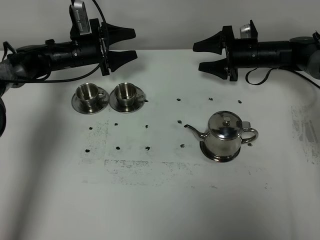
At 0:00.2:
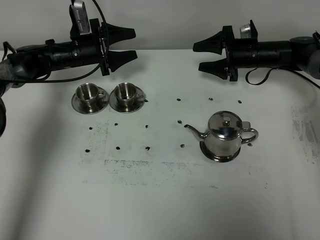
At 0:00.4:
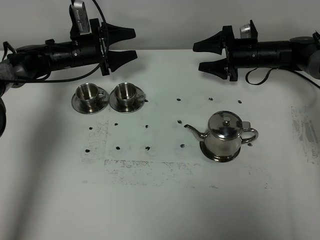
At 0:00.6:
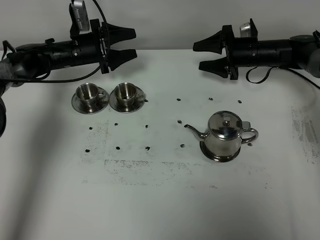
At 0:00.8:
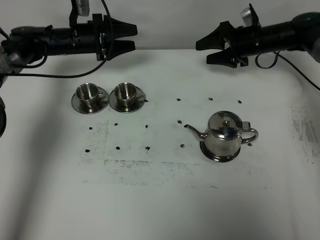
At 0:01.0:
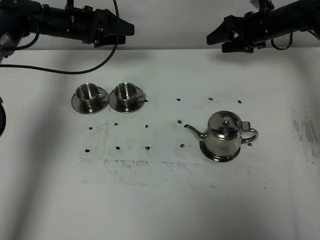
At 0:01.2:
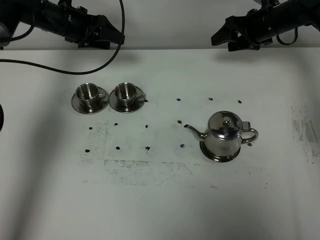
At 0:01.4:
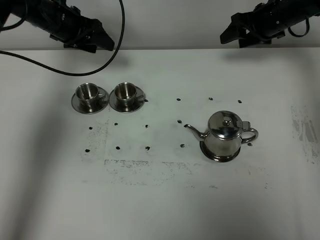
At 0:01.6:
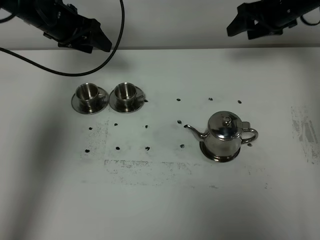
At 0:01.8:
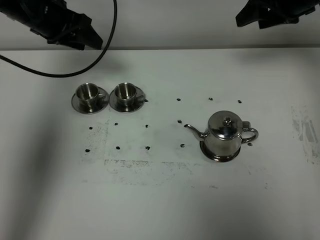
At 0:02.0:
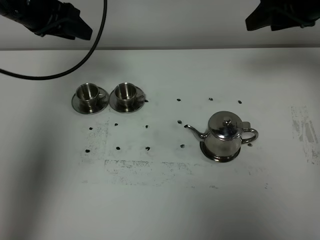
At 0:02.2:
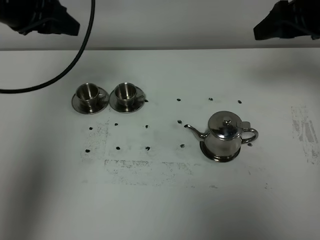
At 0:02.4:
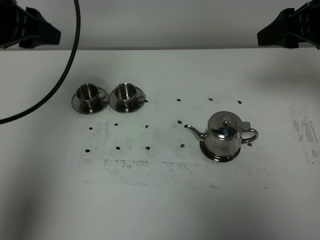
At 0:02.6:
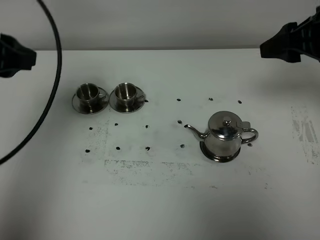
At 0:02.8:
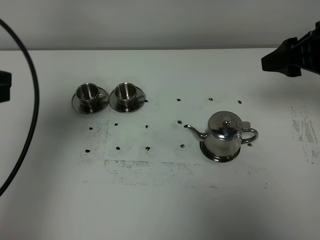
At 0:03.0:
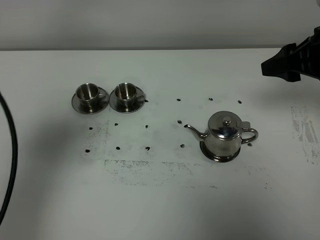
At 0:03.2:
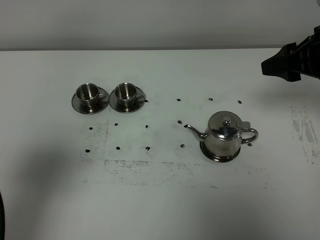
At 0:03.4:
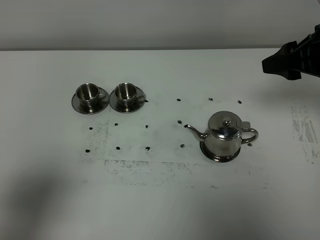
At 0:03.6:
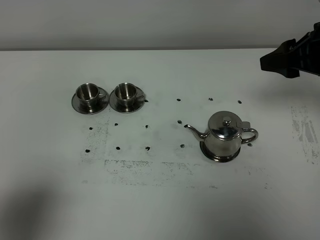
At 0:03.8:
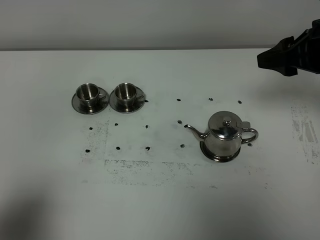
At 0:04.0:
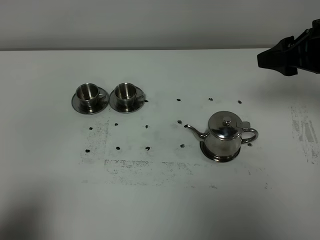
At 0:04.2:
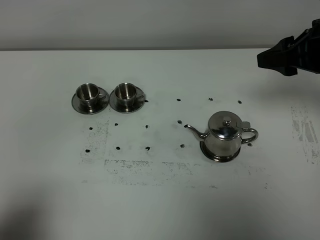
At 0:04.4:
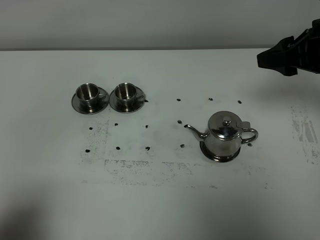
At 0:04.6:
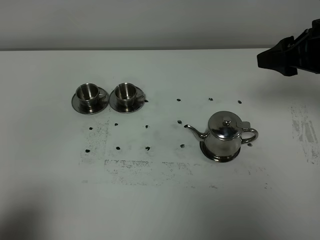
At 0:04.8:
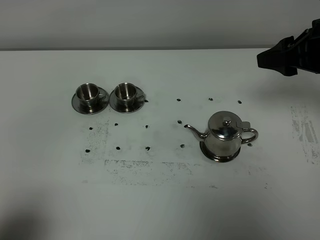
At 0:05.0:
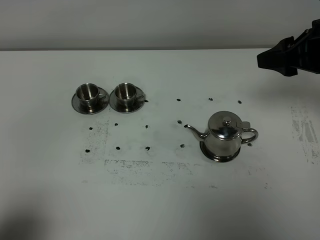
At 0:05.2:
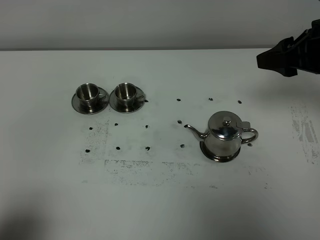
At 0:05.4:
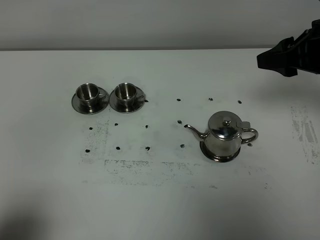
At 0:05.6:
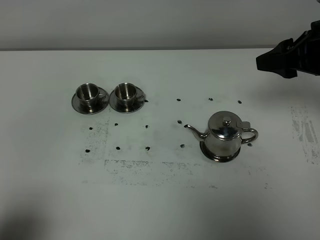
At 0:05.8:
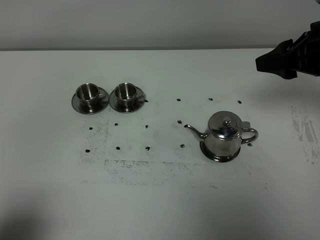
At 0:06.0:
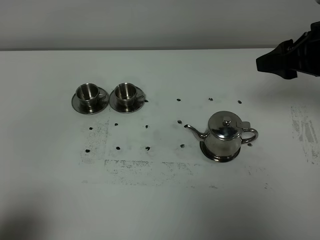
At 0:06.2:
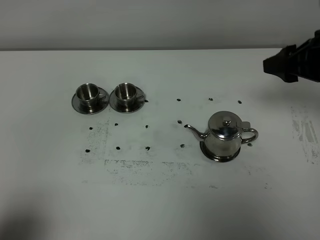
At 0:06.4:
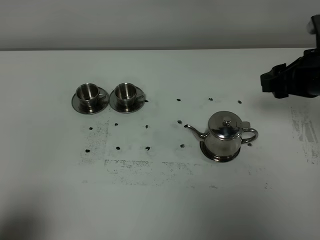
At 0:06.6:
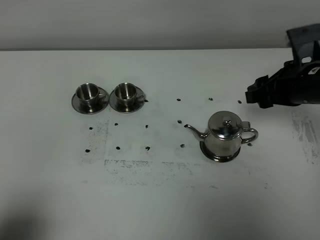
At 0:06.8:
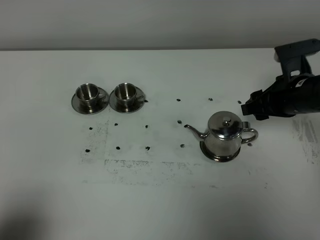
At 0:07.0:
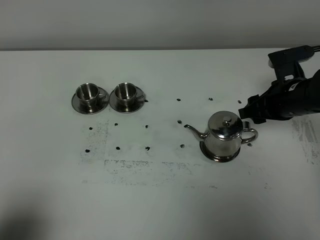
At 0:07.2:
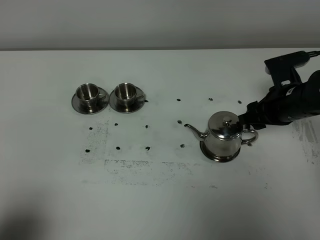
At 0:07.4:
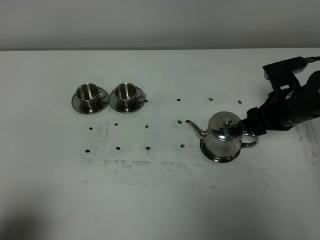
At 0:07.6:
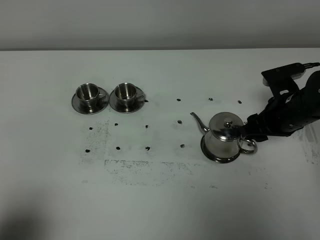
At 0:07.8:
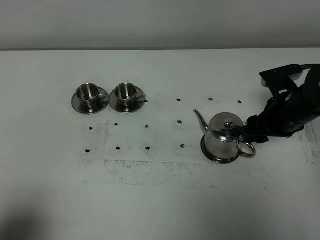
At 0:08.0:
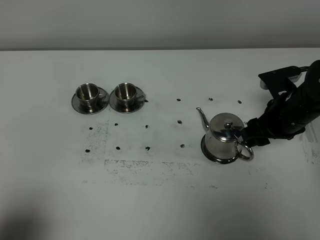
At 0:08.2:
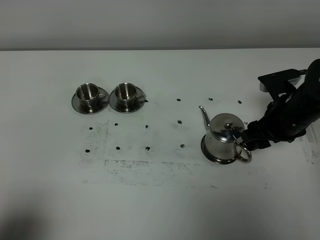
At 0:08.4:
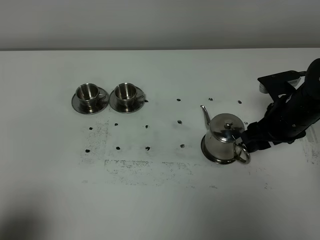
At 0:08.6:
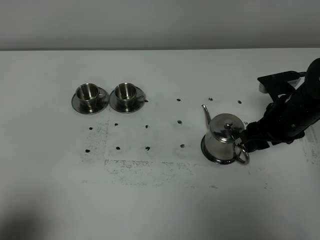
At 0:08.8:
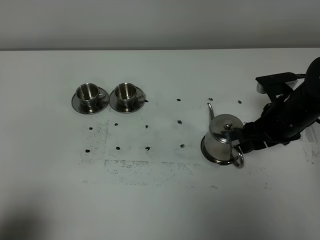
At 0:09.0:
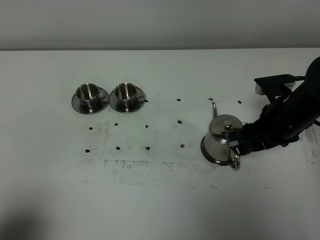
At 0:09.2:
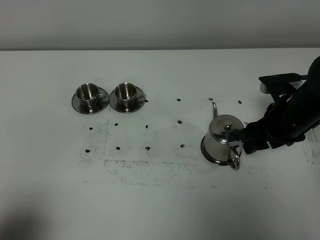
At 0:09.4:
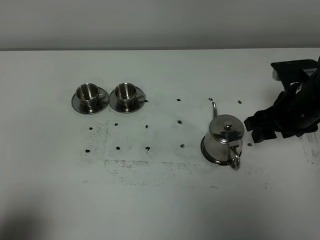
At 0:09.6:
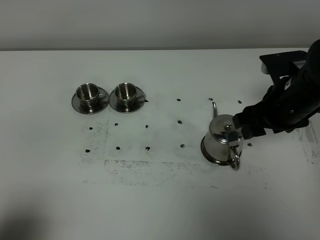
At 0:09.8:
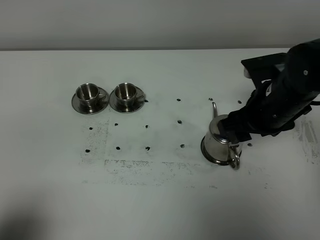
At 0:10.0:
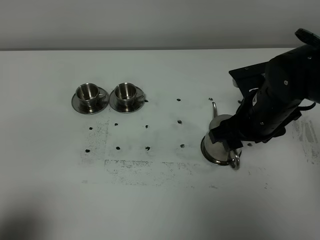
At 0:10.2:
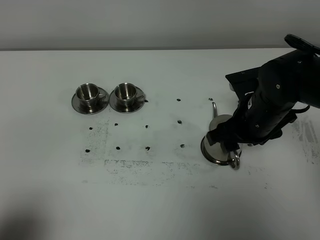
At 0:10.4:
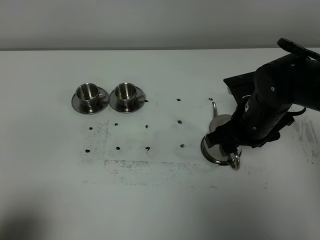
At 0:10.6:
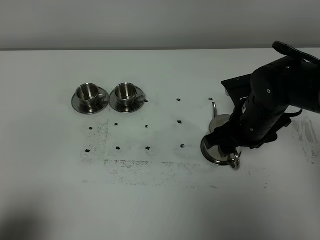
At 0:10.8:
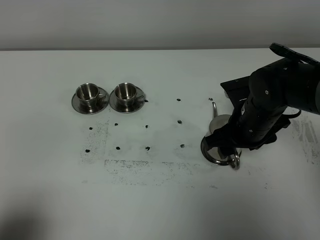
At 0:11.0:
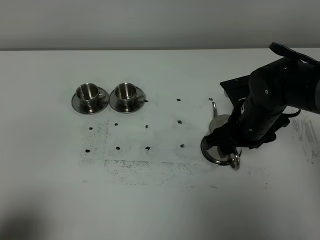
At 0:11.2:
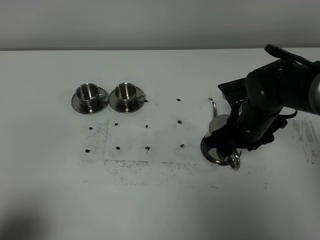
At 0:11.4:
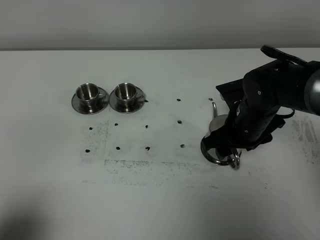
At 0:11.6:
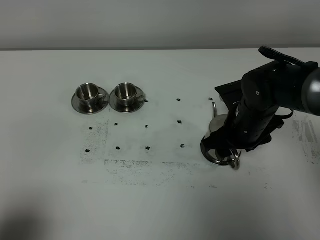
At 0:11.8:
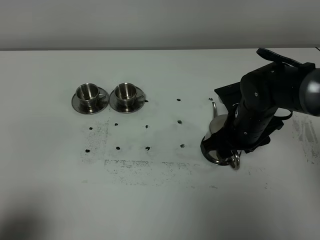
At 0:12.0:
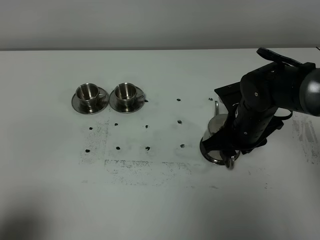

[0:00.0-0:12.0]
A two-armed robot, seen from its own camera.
Task of the whole recording: grasp the stainless steel teapot and pour the tea into the two stainless steel teacups one by one, put the stainless steel teapot back in its original place.
0:00.0 to 0:01.6: Both grippers travel together upward, roughly 15 cm.
0:01.6 to 0:03.0: The left gripper goes some 35 cm backward, and closes; the right gripper is displaced backward by some 20 cm.
0:03.0 to 0:04.4: The left gripper heads backward and downward, covering some 15 cm.
0:06.0 to 0:07.6: The right gripper is displaced downward by approximately 15 cm.
0:07.6 to 0:09.0: The grippers make only small movements.
0:09.0 to 0:10.4: The right gripper shifts approximately 5 cm to the left.
0:10.4 to 0:12.0: The right gripper closes its fingers.

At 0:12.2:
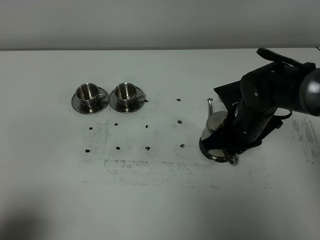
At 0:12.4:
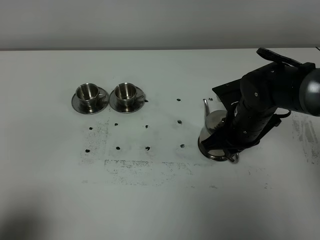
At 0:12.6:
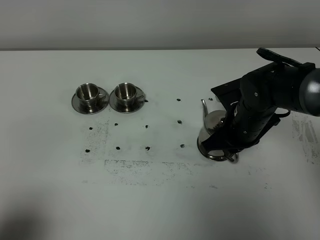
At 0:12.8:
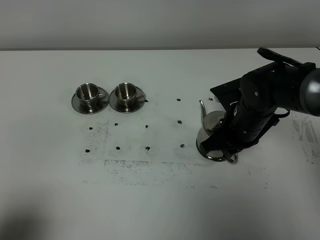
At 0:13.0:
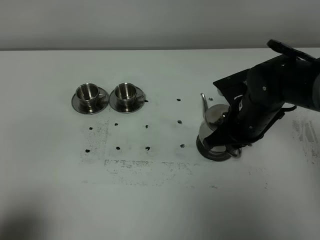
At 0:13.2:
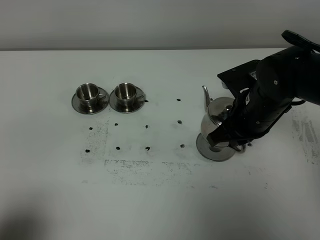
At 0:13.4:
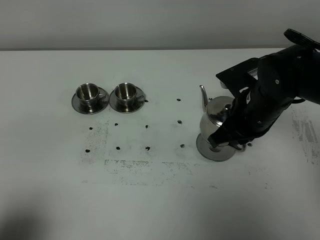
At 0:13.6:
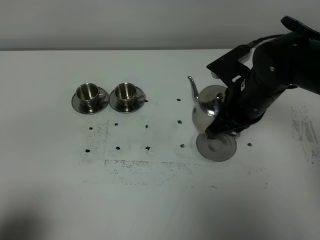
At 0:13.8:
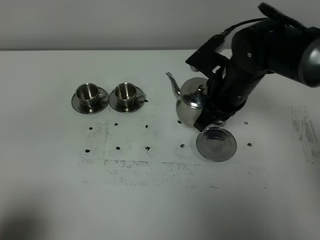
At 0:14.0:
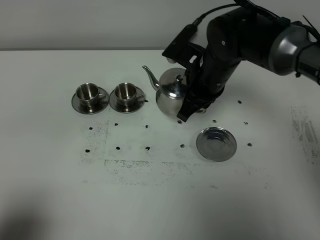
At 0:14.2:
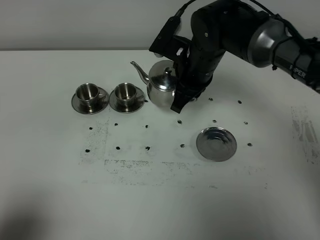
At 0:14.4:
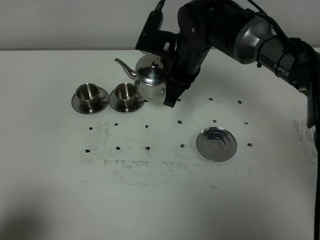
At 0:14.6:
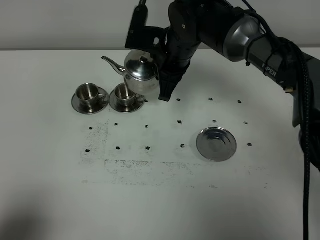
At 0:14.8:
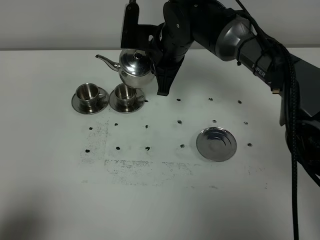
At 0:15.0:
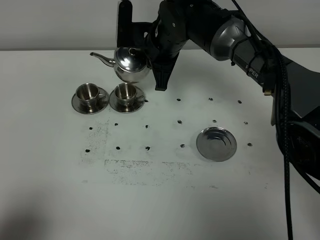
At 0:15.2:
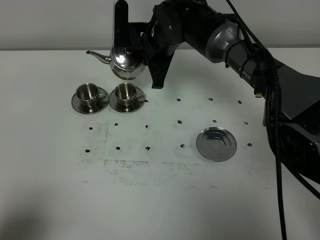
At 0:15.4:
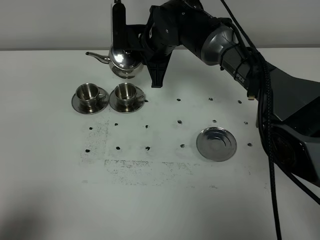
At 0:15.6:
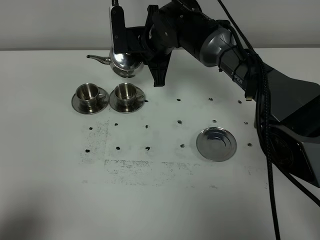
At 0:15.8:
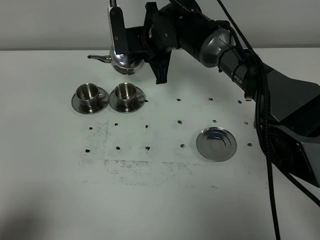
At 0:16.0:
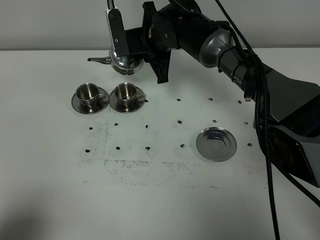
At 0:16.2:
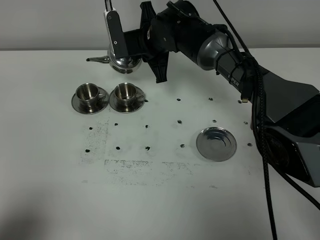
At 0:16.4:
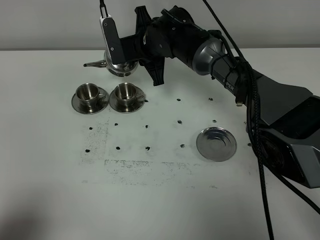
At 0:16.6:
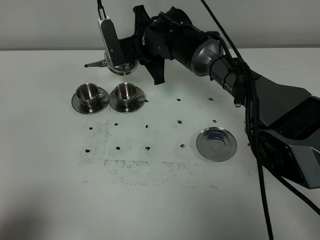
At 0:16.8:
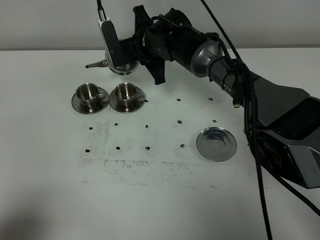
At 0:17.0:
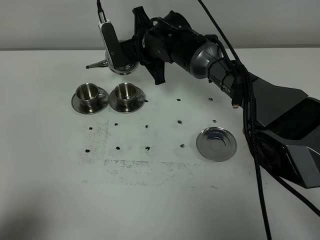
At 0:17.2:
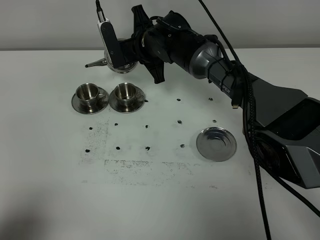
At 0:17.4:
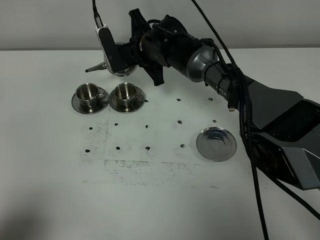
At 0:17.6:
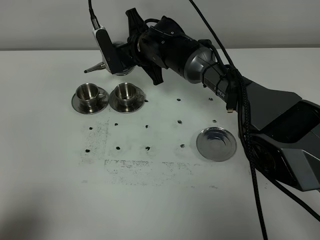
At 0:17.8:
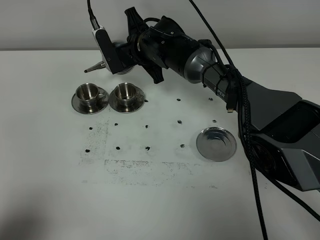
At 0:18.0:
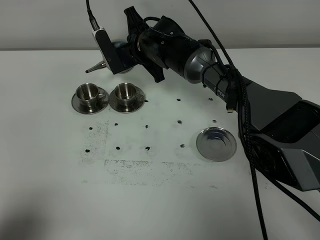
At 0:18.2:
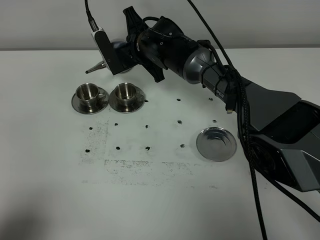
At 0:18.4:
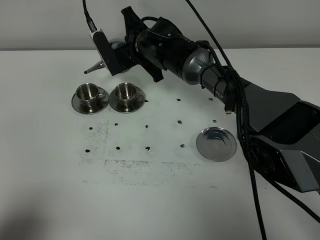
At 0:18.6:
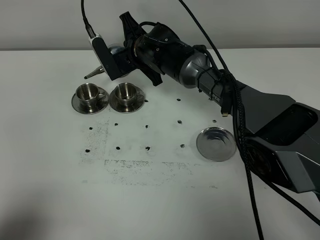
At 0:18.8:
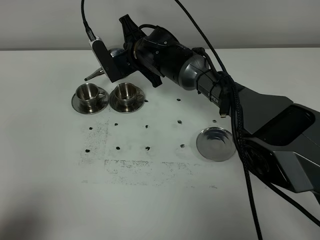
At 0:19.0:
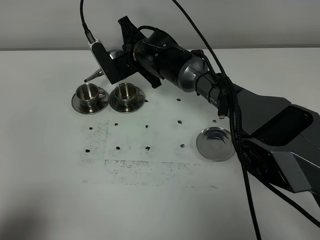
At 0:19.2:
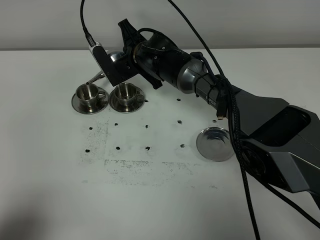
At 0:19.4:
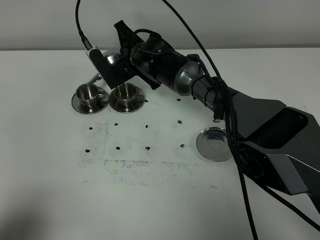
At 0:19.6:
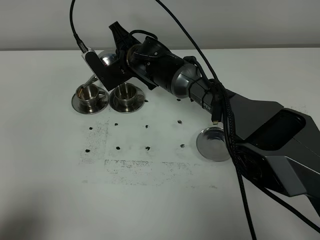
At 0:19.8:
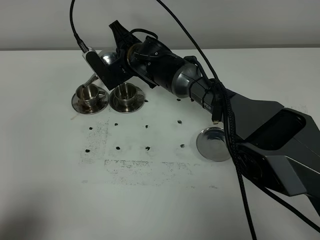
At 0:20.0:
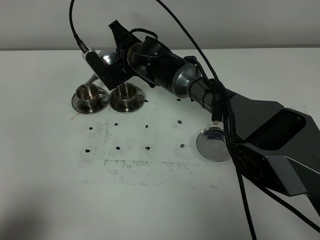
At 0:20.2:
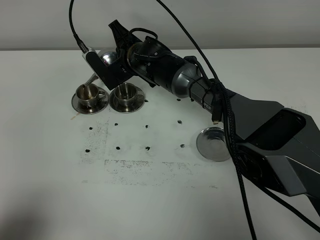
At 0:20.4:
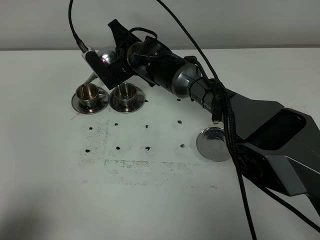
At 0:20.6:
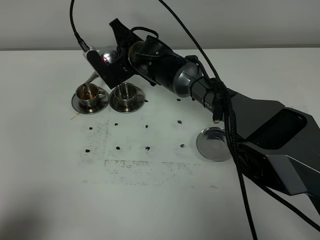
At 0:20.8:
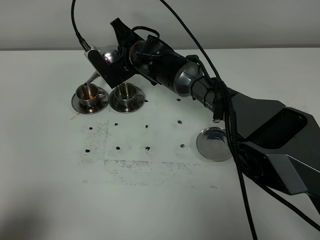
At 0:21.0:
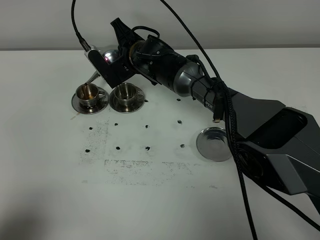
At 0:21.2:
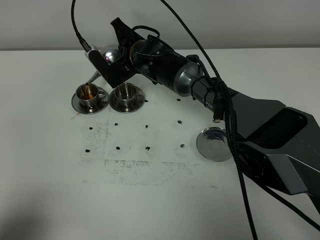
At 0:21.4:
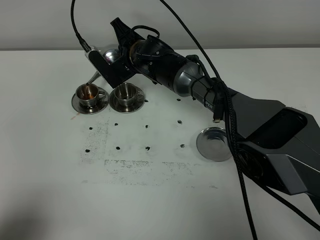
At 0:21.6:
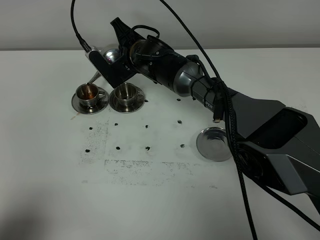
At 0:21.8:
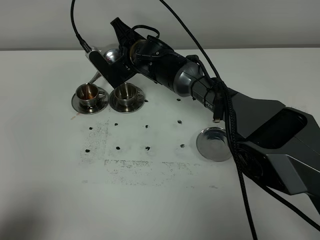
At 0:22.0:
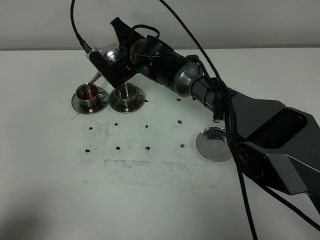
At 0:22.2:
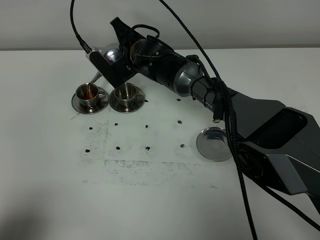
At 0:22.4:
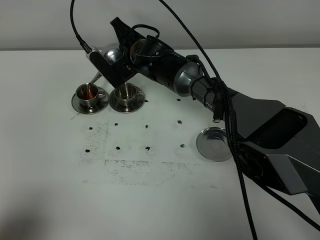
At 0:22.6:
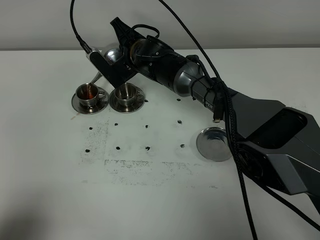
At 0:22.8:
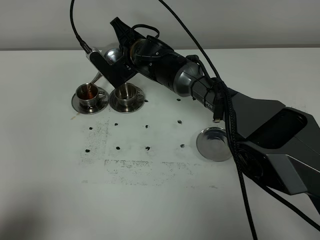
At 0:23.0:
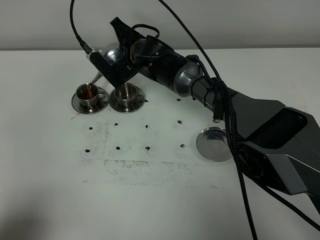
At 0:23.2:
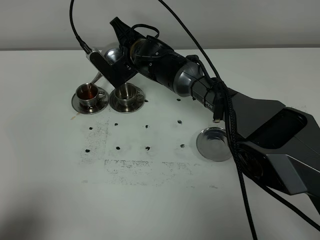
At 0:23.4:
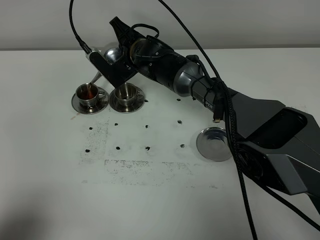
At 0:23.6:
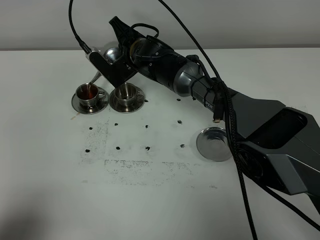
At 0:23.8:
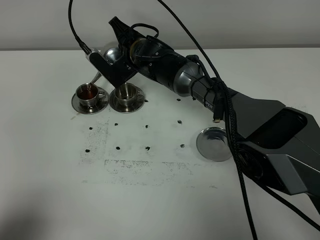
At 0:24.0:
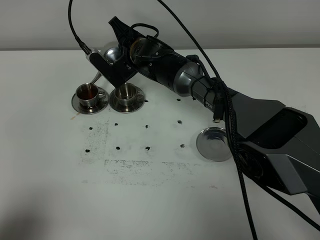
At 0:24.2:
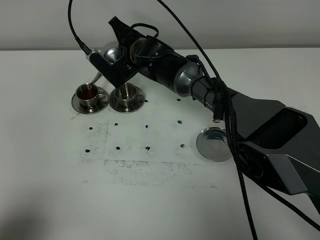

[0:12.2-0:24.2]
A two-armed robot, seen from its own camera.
Task of the whole recording: grasp the stainless steel teapot and pour the tea into the two stainless steel teacups one by one, put the stainless steel teapot back in its original place.
0:12.2 to 0:13.8: The right gripper moves upward, roughly 5 cm.
0:13.8 to 0:15.2: The right gripper goes some 15 cm forward and to the left.
0:16.6 to 0:18.2: There are only small adjustments of the grippers.
0:19.8 to 0:21.2: Both grippers stay about where they are.
0:21.2 to 0:22.6: Neither gripper changes place.
0:22.6 to 0:24.2: Both grippers stay about where they are.
